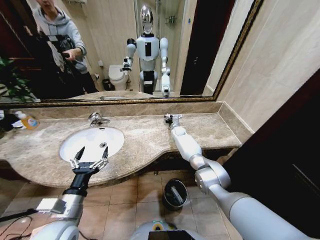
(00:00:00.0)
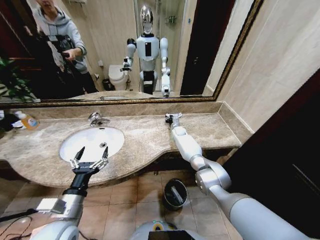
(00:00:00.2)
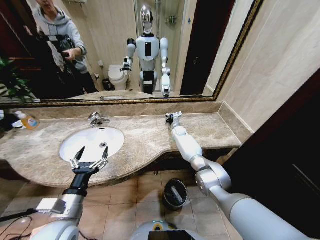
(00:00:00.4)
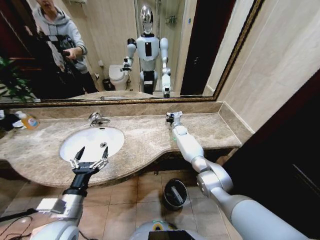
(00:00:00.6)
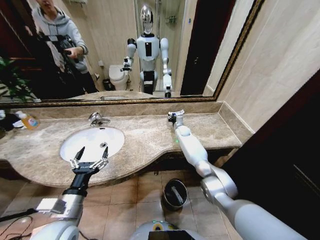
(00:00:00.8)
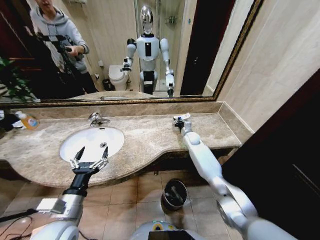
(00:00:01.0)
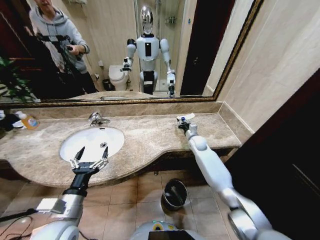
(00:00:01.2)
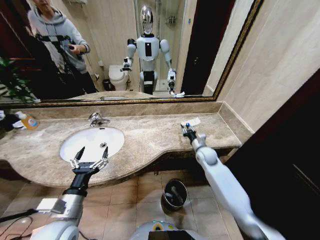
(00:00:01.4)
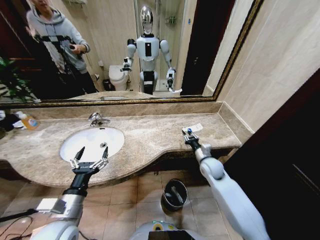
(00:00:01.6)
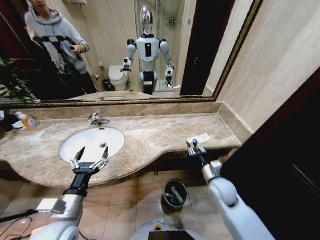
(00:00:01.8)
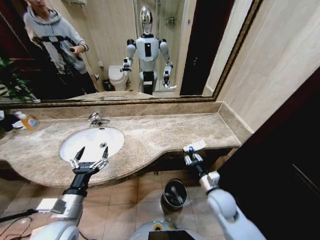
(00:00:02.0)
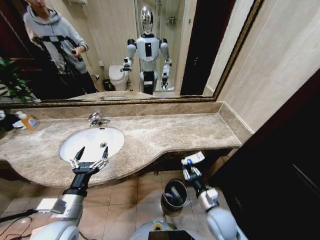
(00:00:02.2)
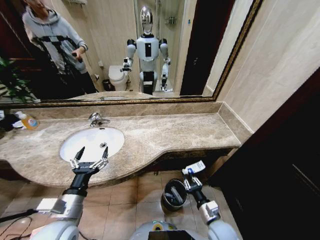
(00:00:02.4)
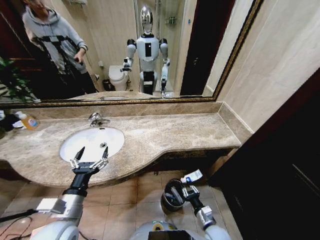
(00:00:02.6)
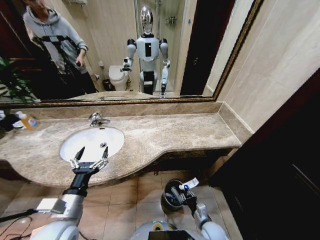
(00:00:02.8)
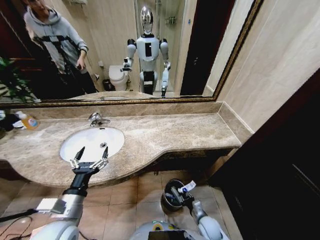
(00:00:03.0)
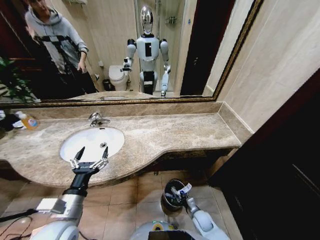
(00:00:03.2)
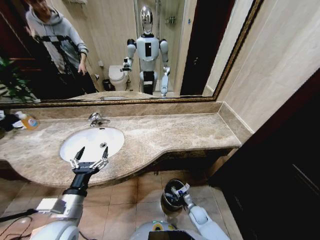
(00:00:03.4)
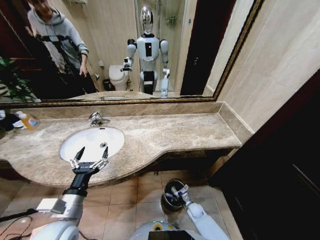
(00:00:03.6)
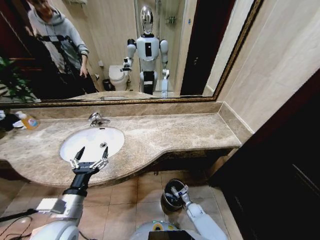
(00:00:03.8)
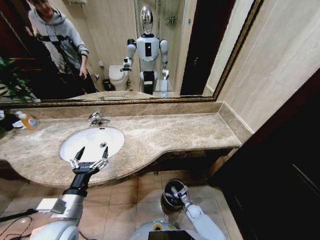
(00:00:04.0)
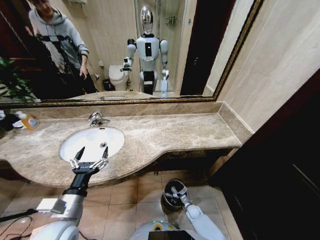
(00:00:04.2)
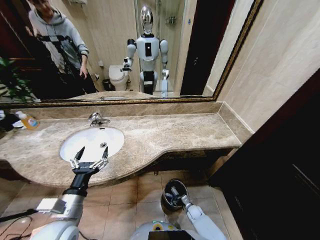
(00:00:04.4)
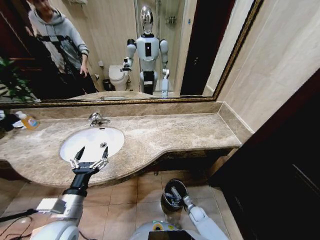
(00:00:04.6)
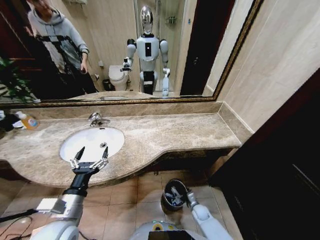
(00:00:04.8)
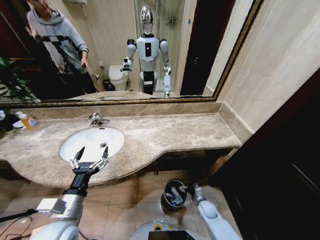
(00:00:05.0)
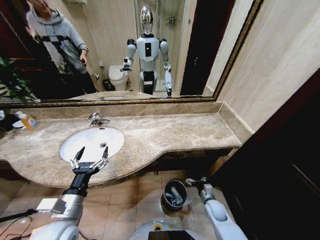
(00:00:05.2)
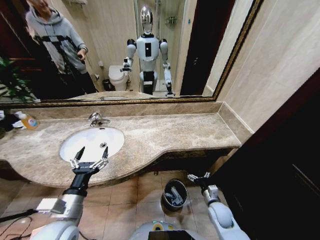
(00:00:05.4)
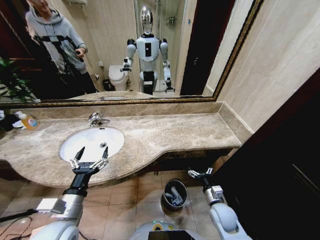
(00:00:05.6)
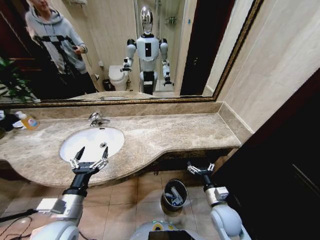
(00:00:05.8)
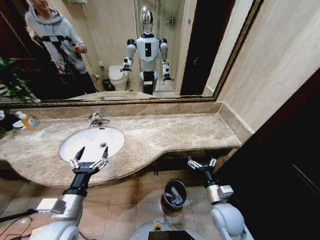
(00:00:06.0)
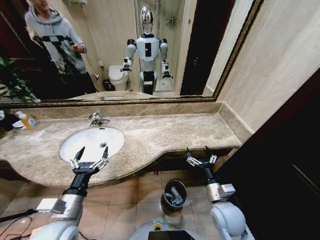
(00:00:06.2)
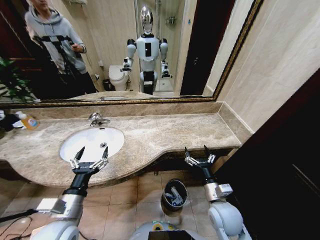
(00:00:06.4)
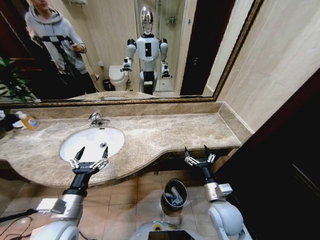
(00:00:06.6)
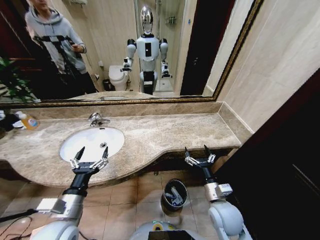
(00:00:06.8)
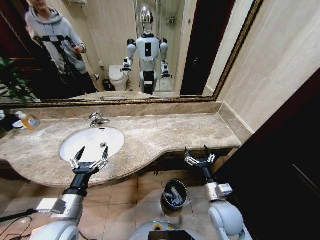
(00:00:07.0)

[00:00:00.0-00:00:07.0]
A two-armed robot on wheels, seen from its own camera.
Task of the whole recording: Pick up the trash from the sink and place it in the trash bin.
00:00:00.0 to 00:00:01.4: The right gripper goes about 20 cm backward and to the right.
00:00:01.4 to 00:00:02.8: The right gripper shifts some 35 cm backward and downward.
00:00:02.8 to 00:00:04.2: The right gripper travels downward and forward by approximately 20 cm.
00:00:04.2 to 00:00:05.6: The right gripper goes approximately 25 cm upward, and opens its fingers.
00:00:05.6 to 00:00:07.0: The right gripper moves upward, about 10 cm.
